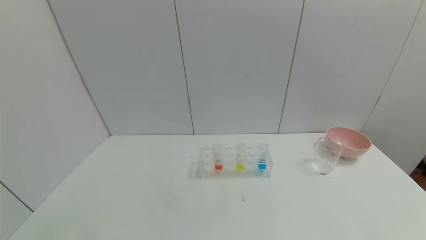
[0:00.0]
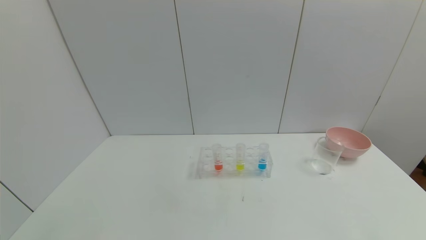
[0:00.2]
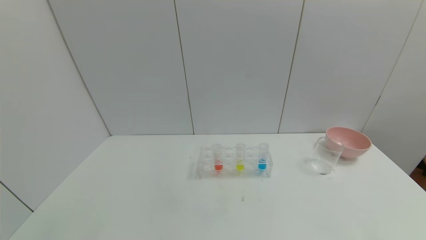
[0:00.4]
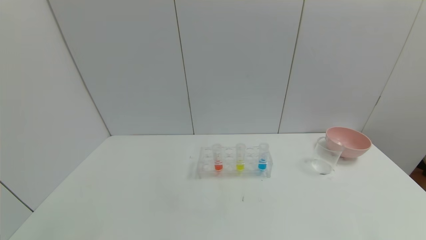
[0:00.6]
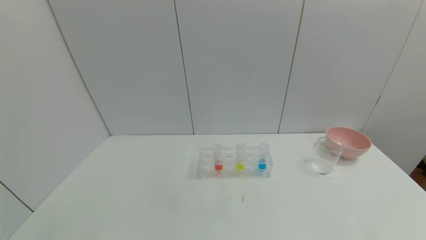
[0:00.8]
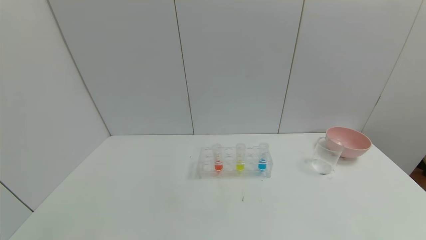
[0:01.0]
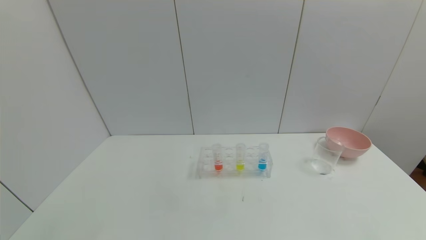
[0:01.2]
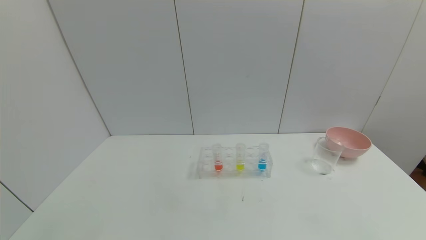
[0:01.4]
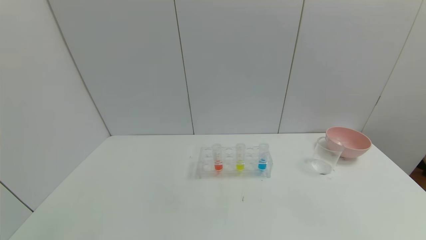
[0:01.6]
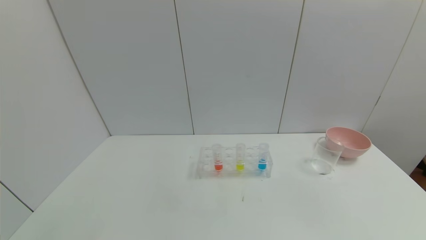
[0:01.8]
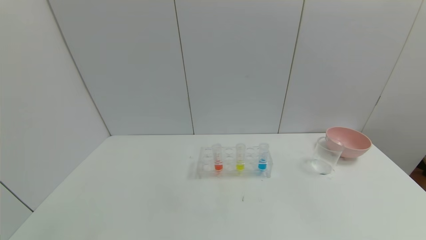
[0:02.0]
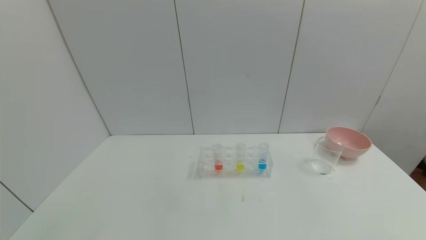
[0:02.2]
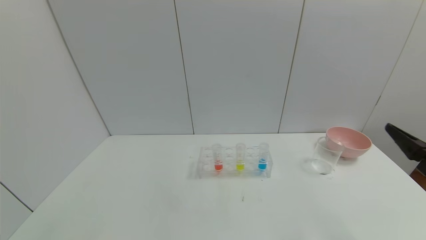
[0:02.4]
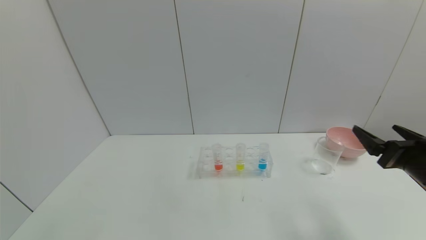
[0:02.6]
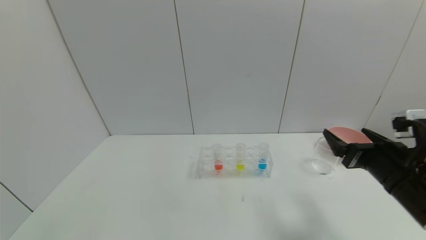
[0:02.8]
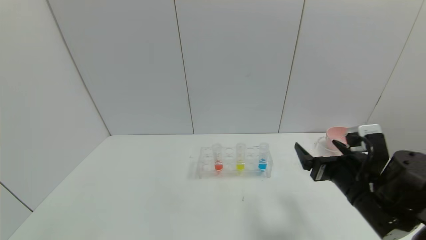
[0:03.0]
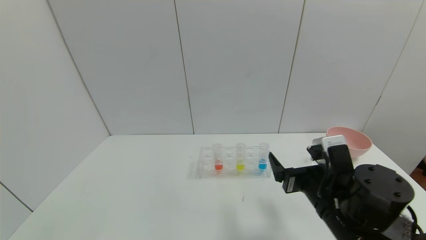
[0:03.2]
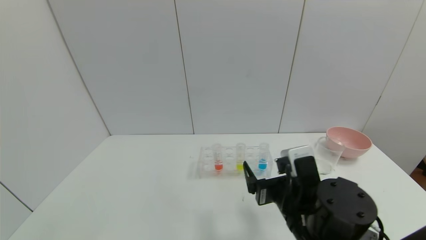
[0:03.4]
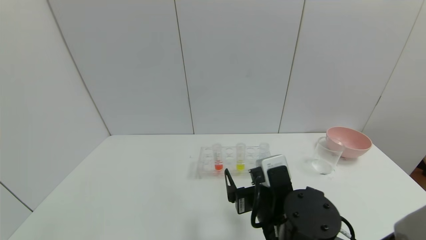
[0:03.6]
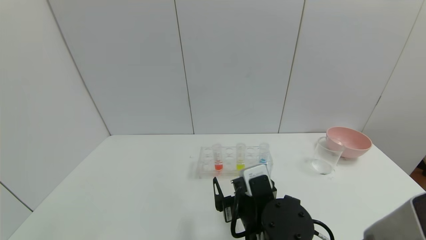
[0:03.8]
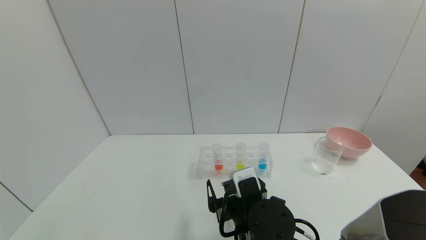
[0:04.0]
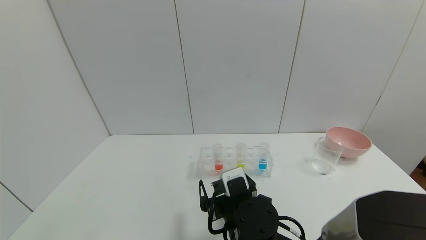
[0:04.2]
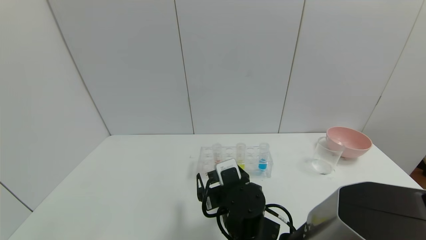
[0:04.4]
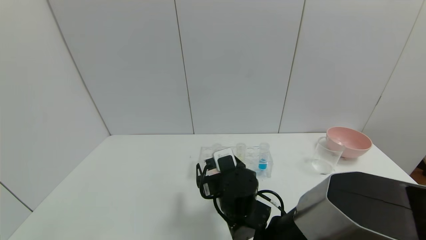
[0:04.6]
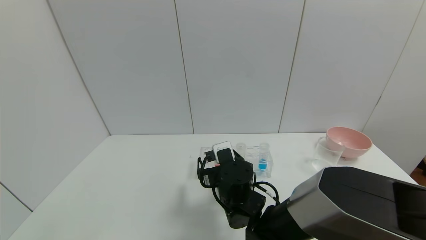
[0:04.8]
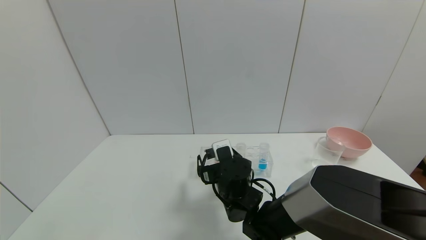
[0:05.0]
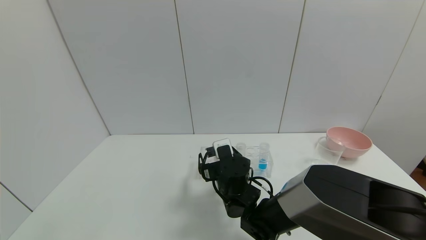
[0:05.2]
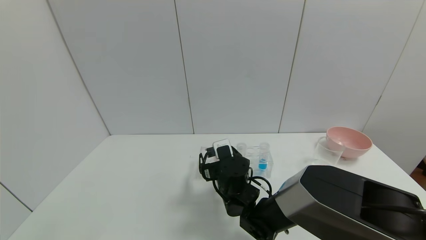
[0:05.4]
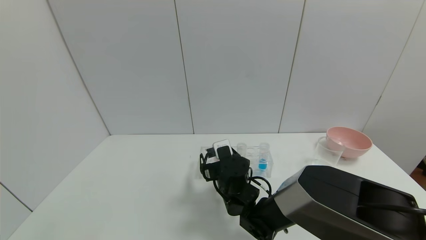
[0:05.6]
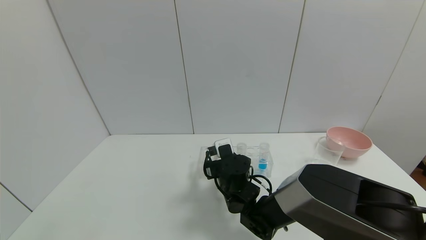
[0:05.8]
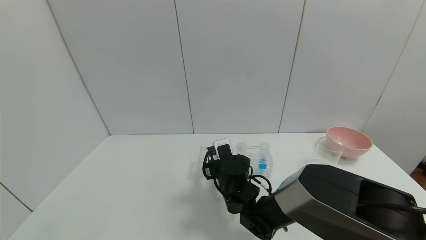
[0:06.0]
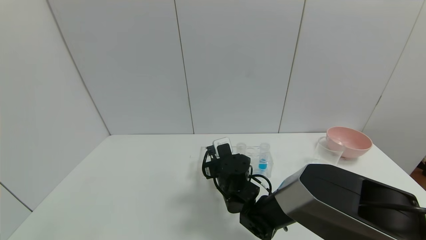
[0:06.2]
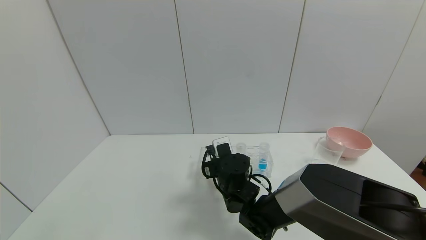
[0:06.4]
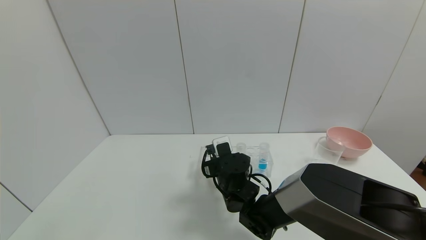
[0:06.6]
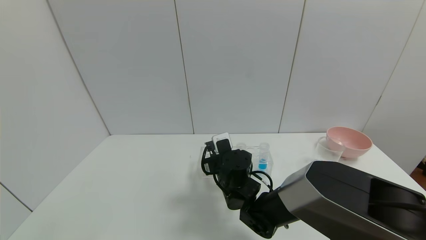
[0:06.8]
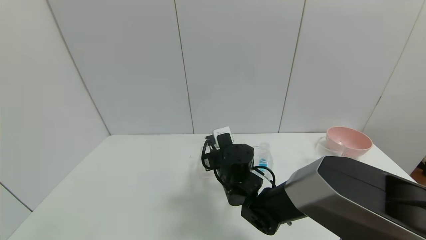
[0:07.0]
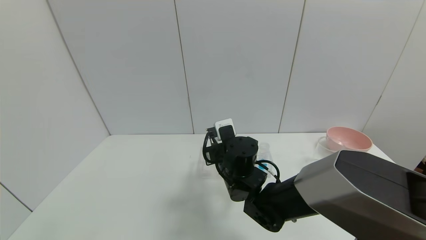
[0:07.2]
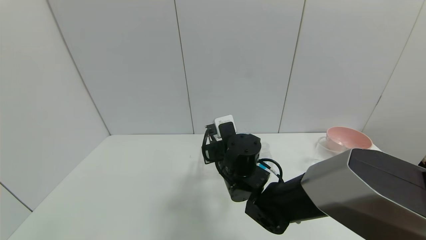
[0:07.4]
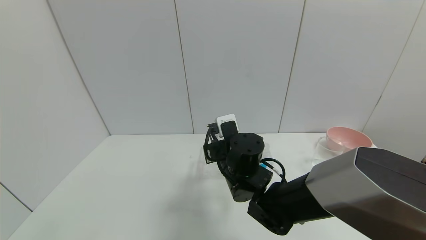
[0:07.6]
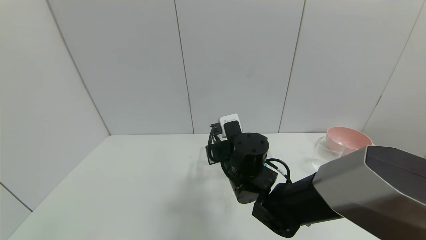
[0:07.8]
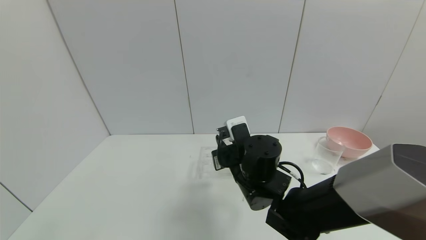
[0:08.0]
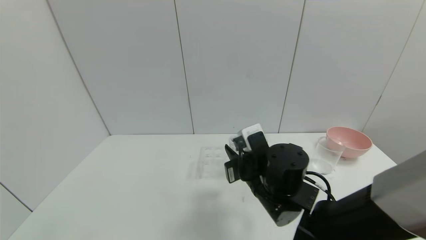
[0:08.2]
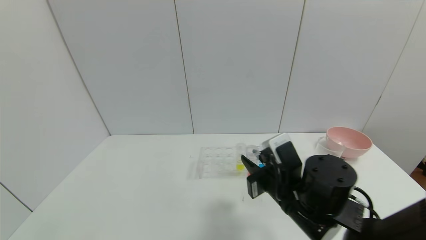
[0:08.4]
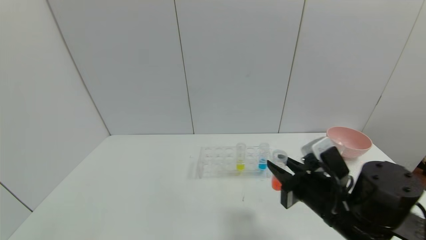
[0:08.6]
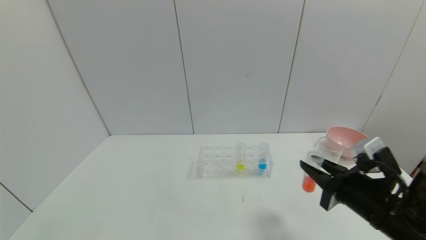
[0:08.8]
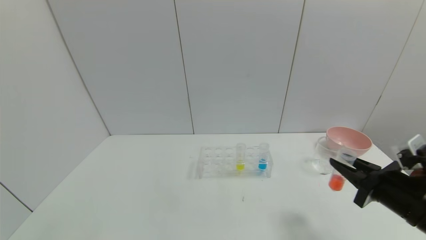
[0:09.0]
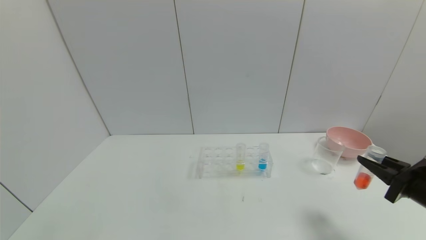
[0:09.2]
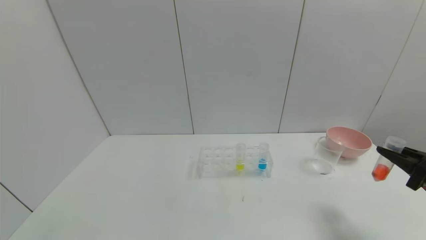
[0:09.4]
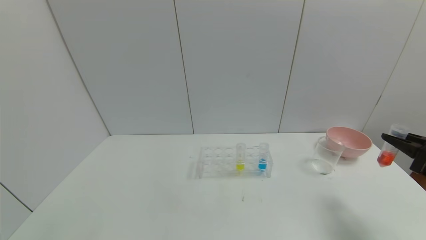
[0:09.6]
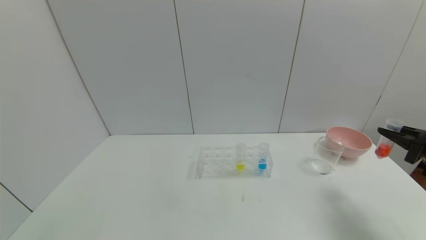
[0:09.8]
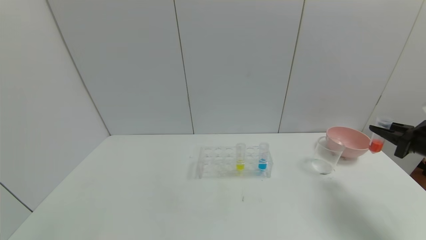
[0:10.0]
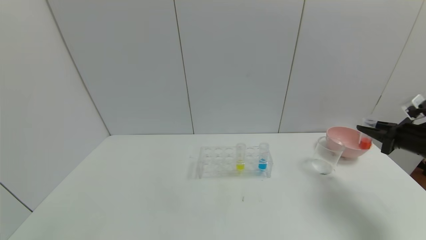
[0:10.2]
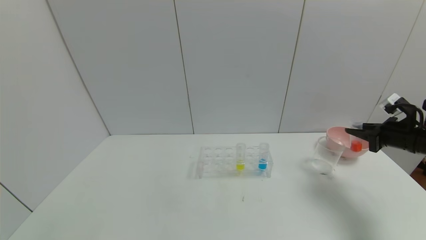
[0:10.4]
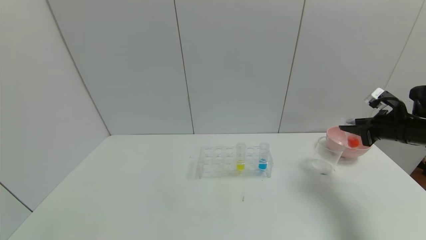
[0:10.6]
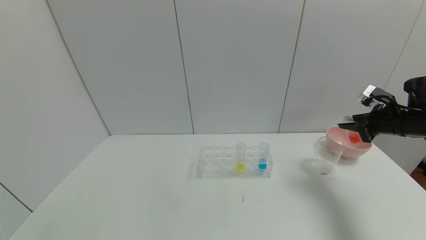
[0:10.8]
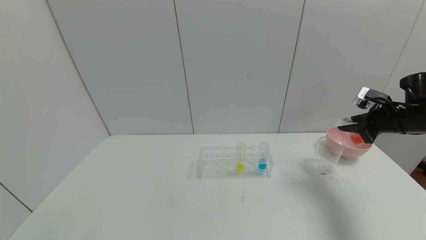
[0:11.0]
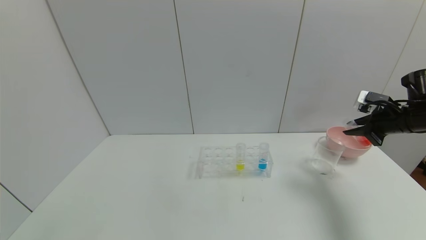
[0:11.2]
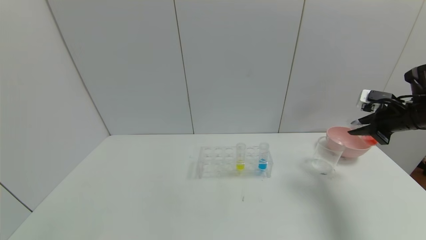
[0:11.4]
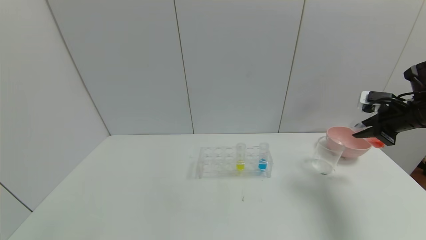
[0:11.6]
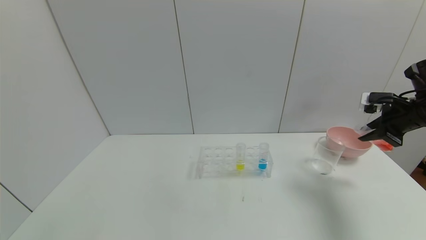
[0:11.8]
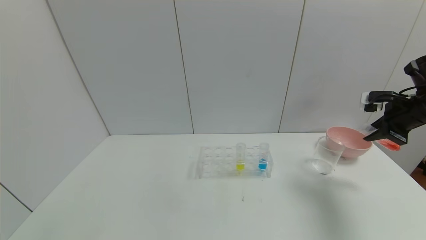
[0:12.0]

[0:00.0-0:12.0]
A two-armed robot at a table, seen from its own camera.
Task of the whole recording: pick up the test tube with red pigment and the test tube with blue pigment by grippers and pour them into the container.
Step, 0:00.0 to 0:08.8: Pick up the test tube containing the red reagent with right gripper.
0:01.6 to 0:03.0: The right gripper goes approximately 30 cm forward and to the left.
0:03.0 to 0:04.4: The right gripper is displaced to the left by approximately 20 cm.
0:04.4 to 0:06.0: The right gripper moves forward, about 10 cm, and closes.
0:06.0 to 0:07.6: The right gripper shifts some 10 cm upward.
0:07.6 to 0:09.0: The right gripper goes some 30 cm to the right and backward.
0:09.0 to 0:10.4: The right gripper goes some 20 cm forward and to the right.
0:10.4 to 0:12.0: The right gripper heads upward, covering some 10 cm.

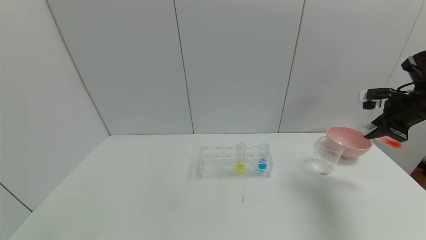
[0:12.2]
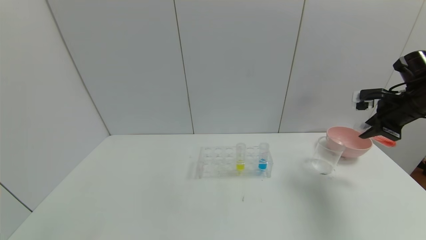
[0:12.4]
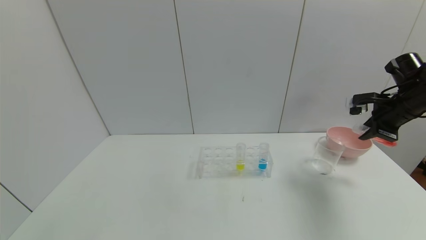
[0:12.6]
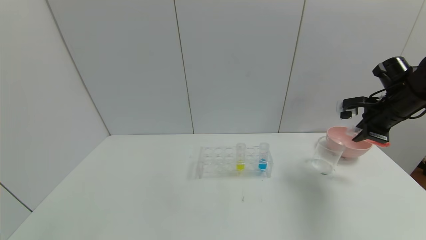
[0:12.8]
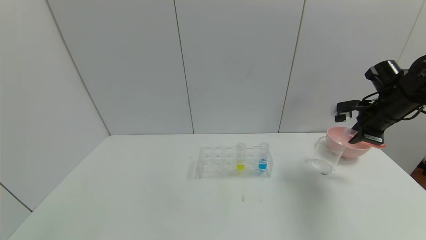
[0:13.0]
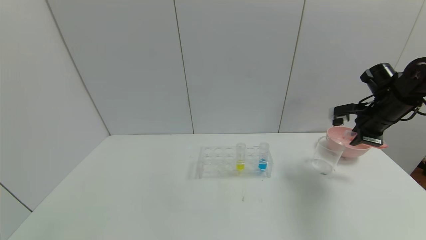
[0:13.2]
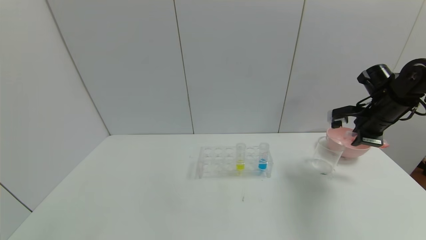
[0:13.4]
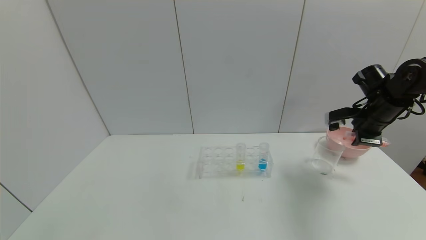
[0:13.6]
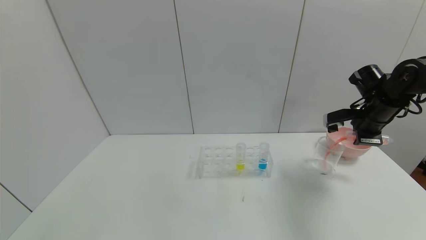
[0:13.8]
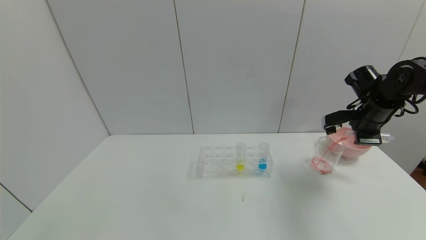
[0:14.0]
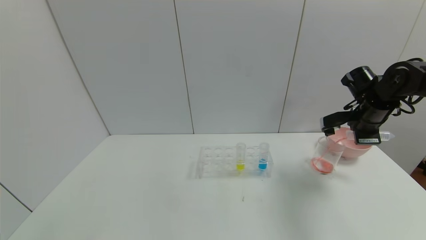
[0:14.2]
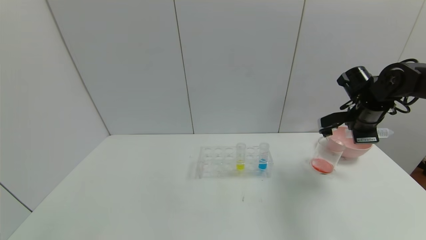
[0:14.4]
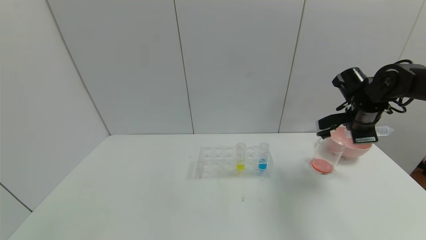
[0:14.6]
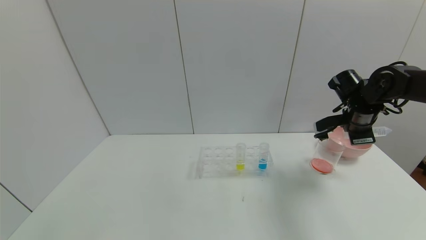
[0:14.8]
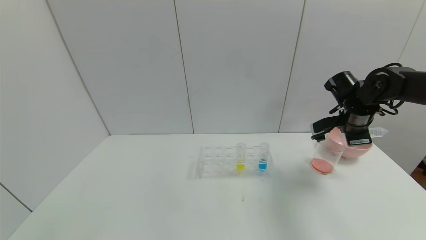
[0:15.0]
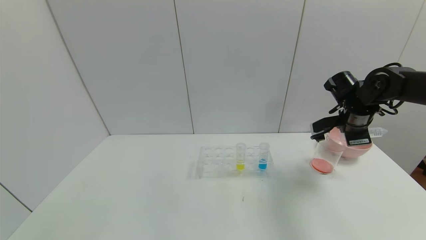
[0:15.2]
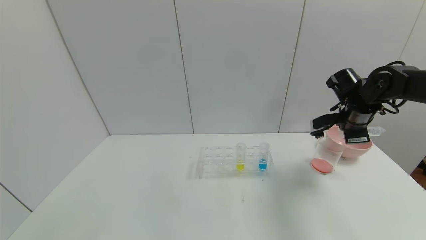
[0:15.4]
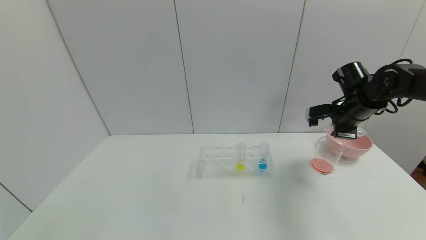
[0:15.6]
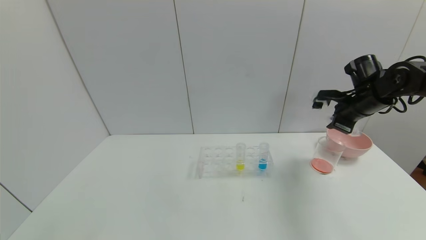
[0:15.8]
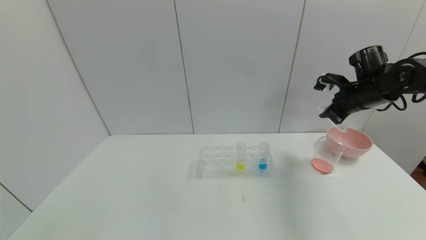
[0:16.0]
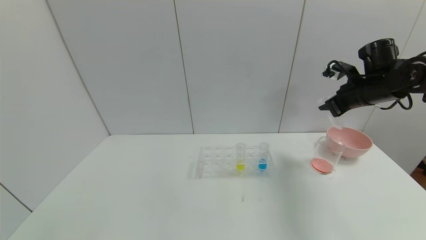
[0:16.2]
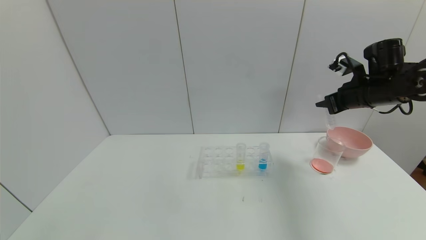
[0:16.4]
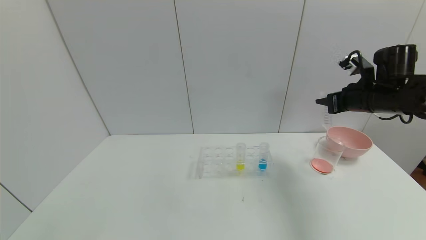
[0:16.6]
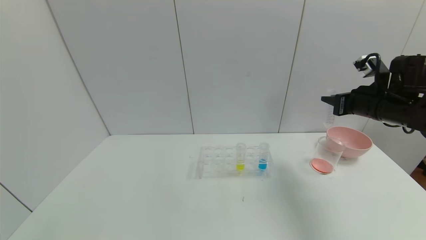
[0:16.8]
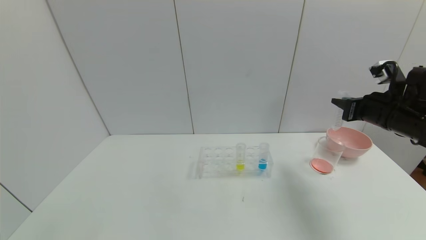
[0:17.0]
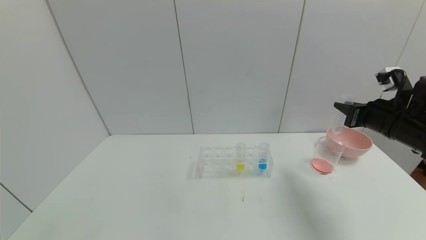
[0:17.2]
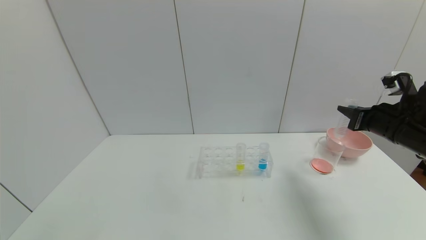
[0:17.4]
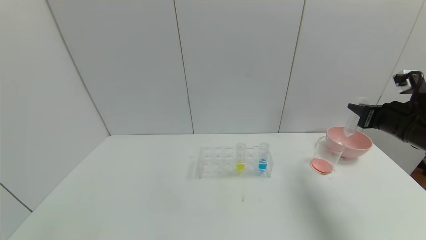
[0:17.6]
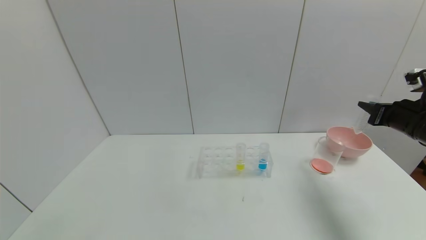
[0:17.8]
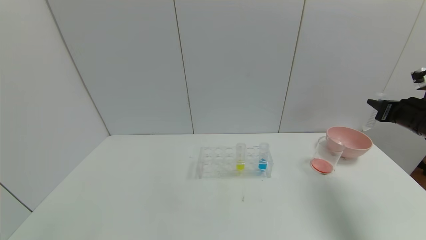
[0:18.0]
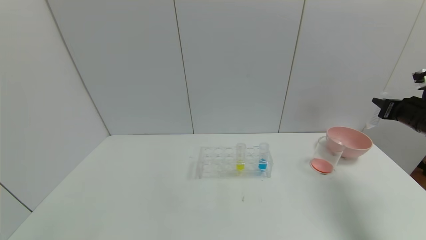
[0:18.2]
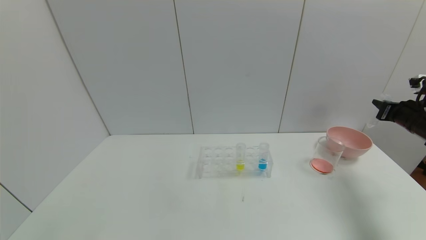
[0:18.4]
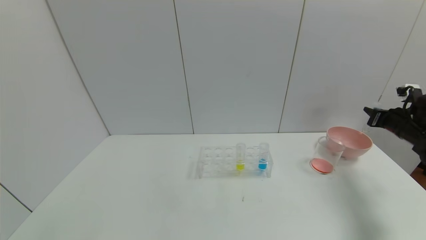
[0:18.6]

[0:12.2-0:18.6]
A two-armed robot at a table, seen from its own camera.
Task of the whole recording: pick up the test tube with red pigment and the test tube with blue pigment by grippers and pour them into the container.
Step, 0:12.2 to 0:17.8: Pour the red reagent into the graduated cylinder with right gripper.
0:12.2 to 0:13.8: The right gripper travels to the left by roughly 5 cm.
0:13.8 to 0:15.4: The grippers stay close to where they were, moving slightly.
0:15.4 to 0:17.0: The right gripper heads backward, covering roughly 5 cm.
0:17.0 to 0:18.6: The right gripper moves to the right, downward and forward, roughly 15 cm.
